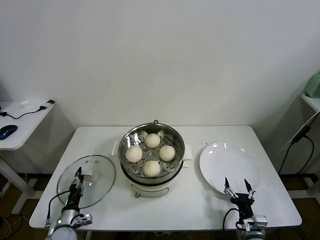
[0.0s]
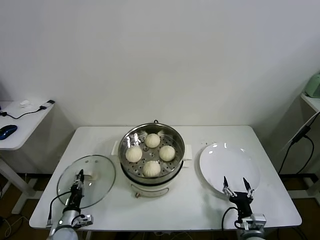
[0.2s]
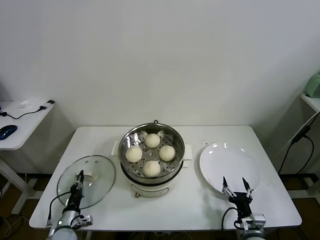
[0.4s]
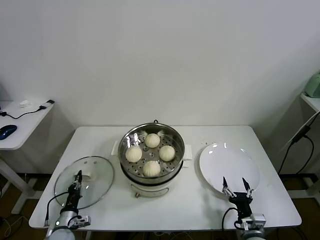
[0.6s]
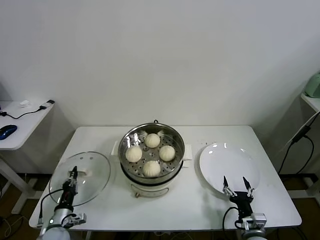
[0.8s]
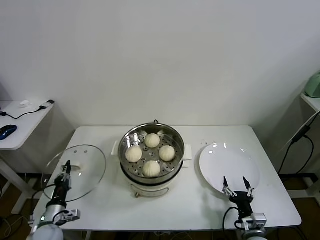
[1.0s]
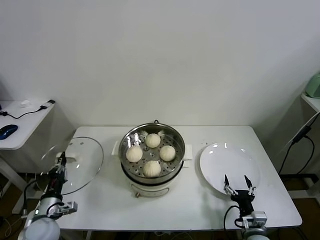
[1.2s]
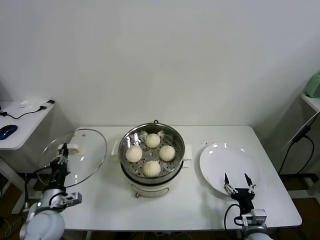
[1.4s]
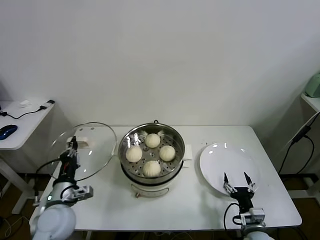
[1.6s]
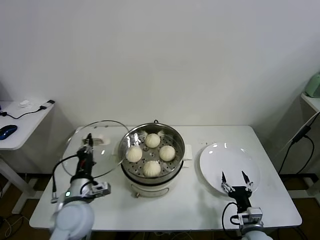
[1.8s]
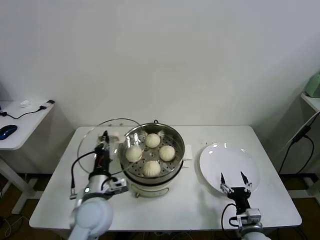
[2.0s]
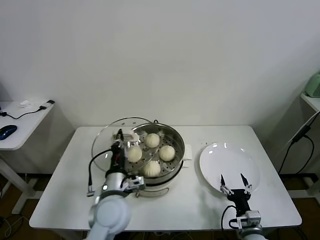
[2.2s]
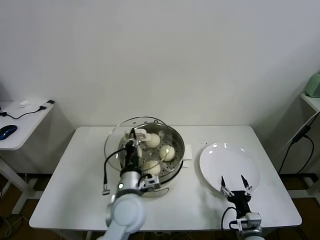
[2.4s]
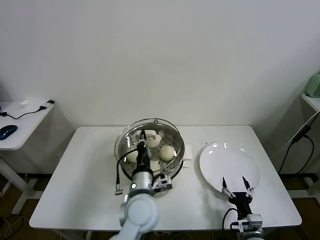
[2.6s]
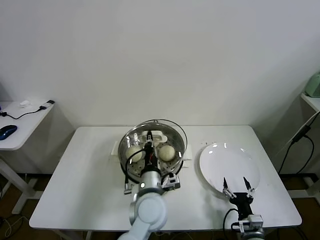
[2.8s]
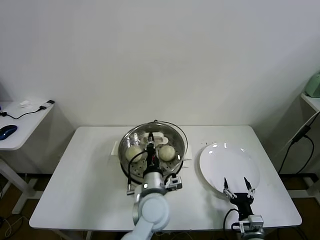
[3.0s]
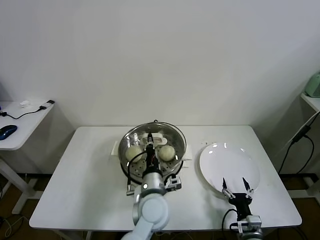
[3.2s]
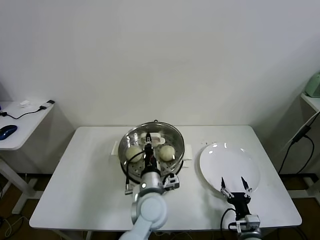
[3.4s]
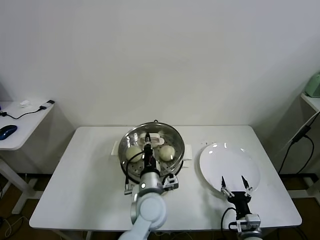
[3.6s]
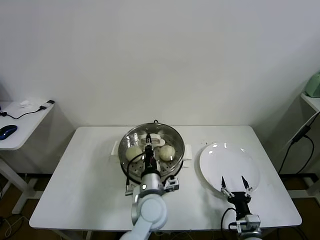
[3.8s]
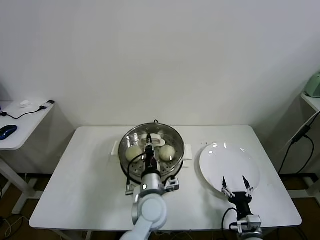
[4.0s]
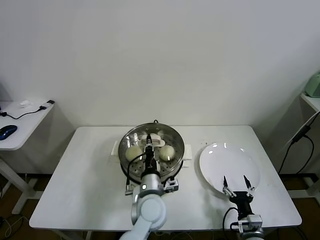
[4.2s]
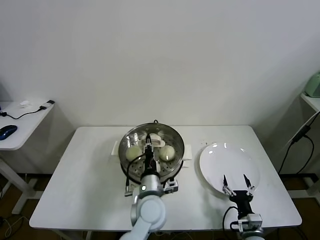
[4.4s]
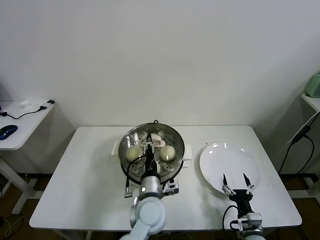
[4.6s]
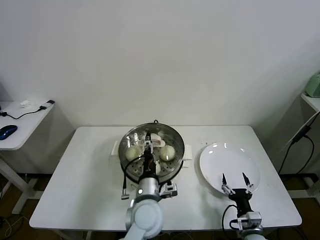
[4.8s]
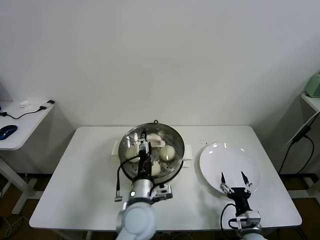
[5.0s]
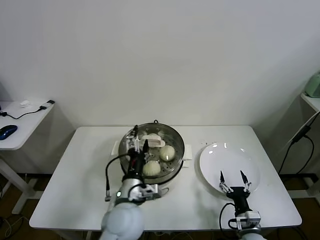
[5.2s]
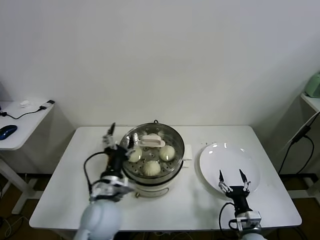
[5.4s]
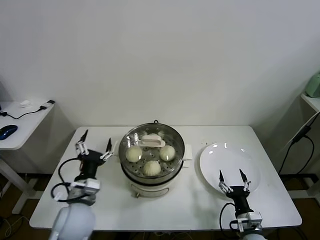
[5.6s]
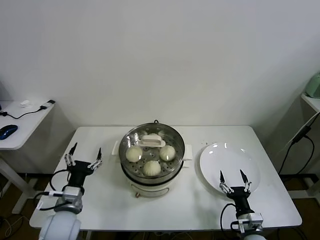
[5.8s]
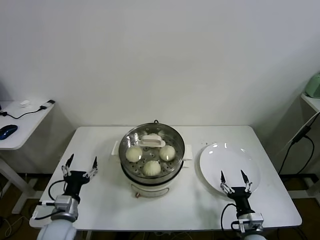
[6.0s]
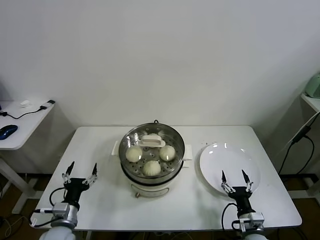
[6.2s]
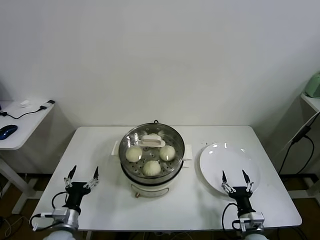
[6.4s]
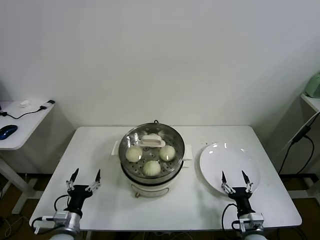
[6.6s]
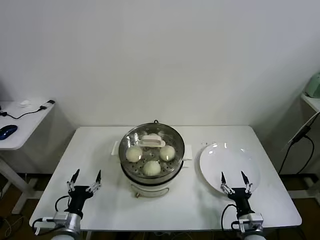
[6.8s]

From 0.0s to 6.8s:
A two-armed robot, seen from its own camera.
Task of the whole recording: take steamed baozi put them in steamer.
Step, from 0.6s to 4.6s: Place the pot lid on the steamer with left gripper.
From 0.0s to 1.4s: The left gripper travels upward by roughly 15 cm, and closes its fingers.
From 1.4s to 2.8s: The left gripper goes roughly 30 cm to the right.
From 2.8s to 4.0s: The grippers stay close to where they were, moving slightly.
From 4.0s to 5.4s: The left gripper moves to the left, approximately 10 cm, and opens.
From 5.4s to 6.8s: The left gripper is displaced to the left and downward by some 25 cm.

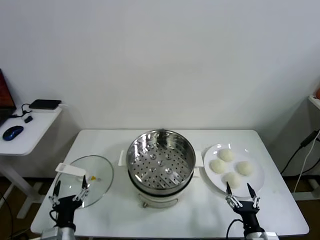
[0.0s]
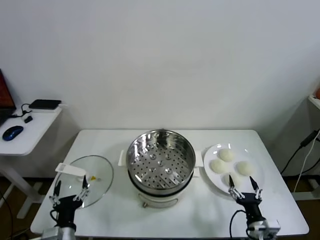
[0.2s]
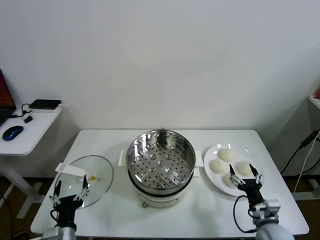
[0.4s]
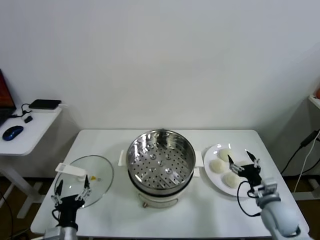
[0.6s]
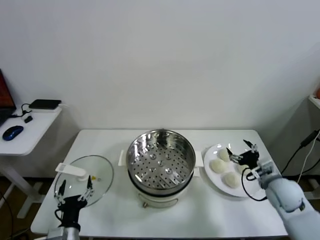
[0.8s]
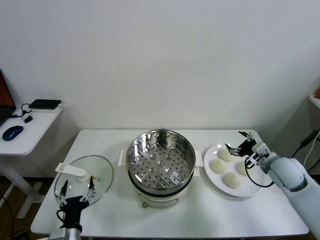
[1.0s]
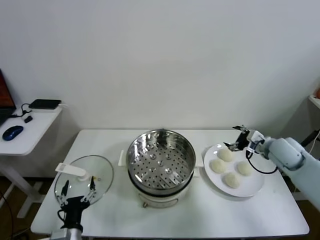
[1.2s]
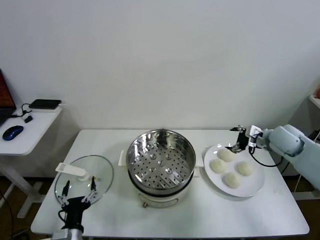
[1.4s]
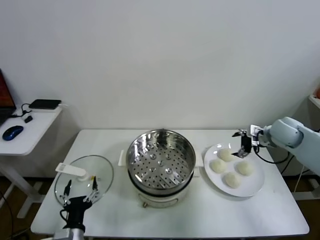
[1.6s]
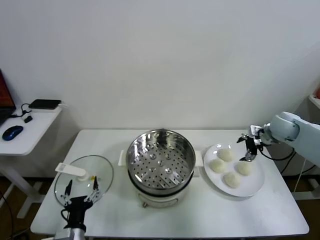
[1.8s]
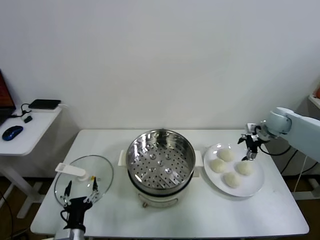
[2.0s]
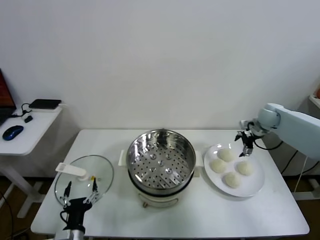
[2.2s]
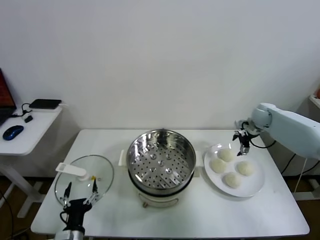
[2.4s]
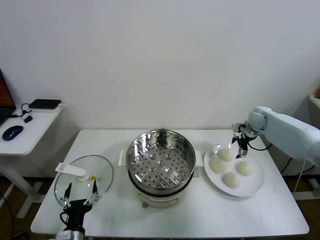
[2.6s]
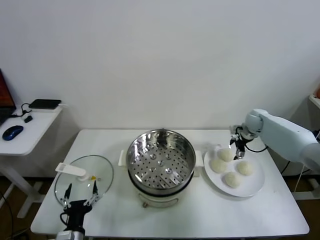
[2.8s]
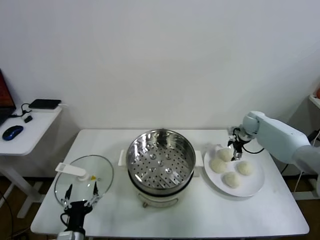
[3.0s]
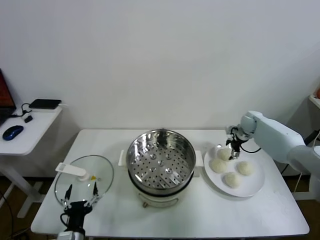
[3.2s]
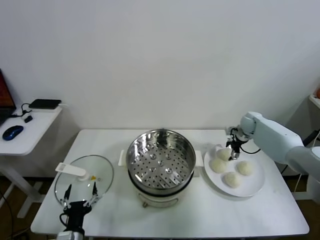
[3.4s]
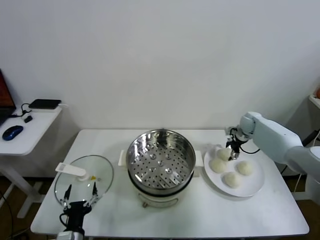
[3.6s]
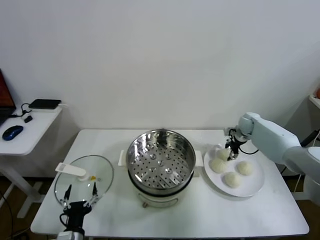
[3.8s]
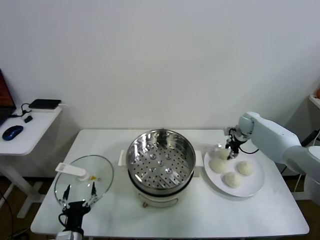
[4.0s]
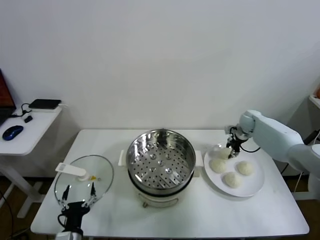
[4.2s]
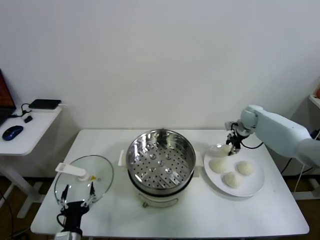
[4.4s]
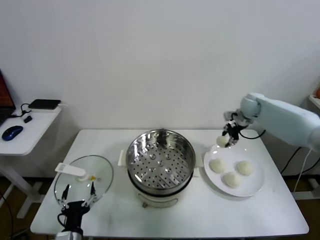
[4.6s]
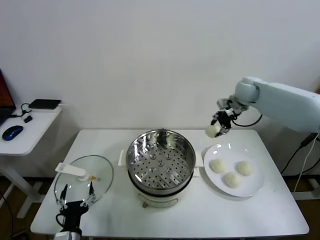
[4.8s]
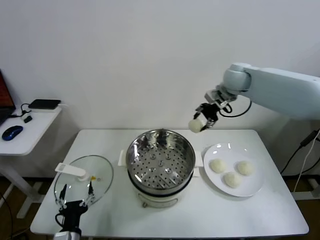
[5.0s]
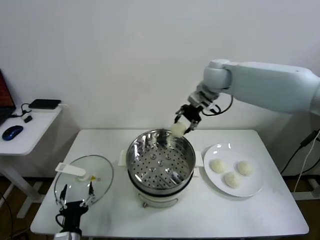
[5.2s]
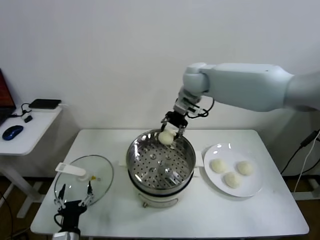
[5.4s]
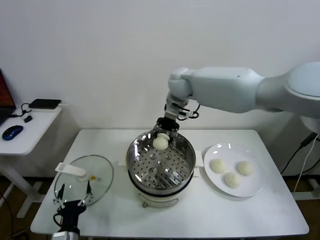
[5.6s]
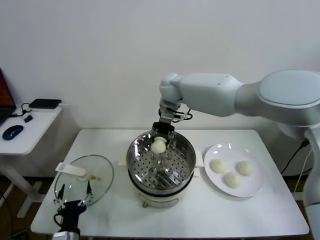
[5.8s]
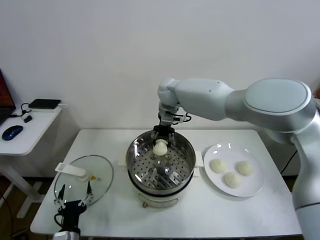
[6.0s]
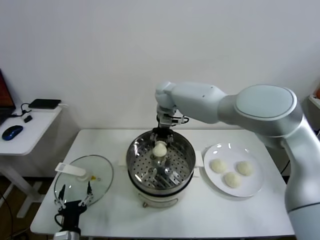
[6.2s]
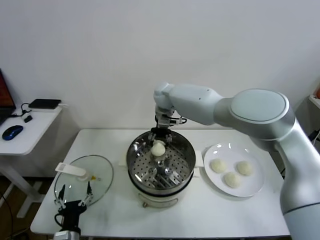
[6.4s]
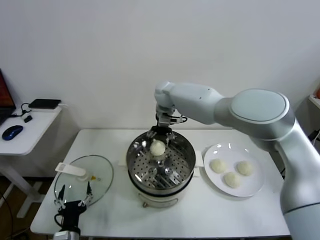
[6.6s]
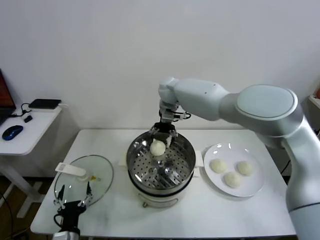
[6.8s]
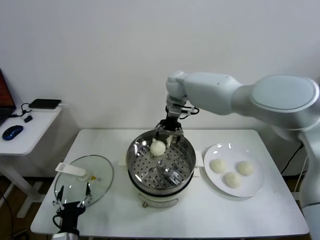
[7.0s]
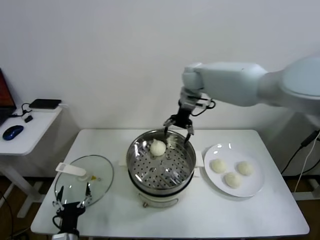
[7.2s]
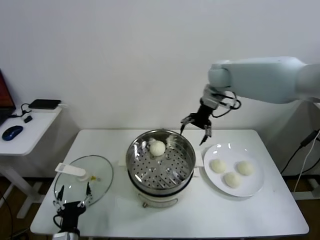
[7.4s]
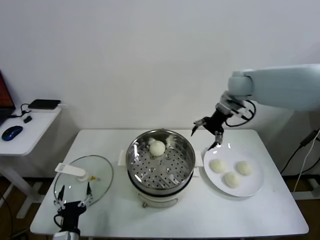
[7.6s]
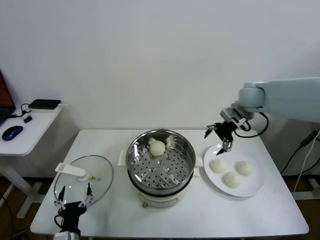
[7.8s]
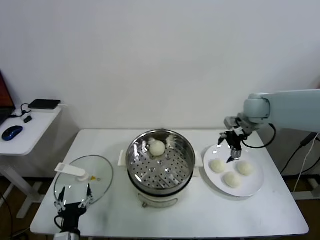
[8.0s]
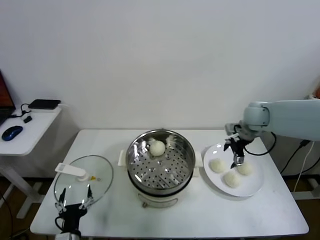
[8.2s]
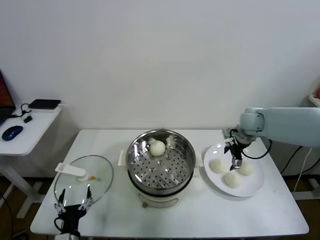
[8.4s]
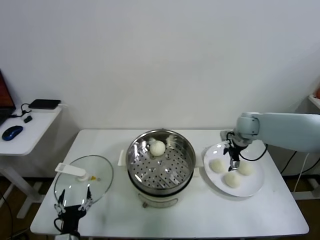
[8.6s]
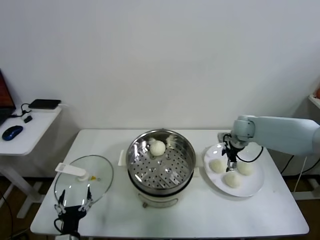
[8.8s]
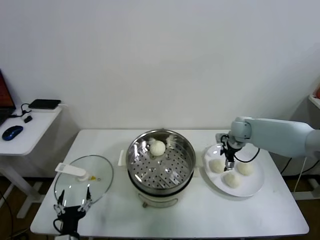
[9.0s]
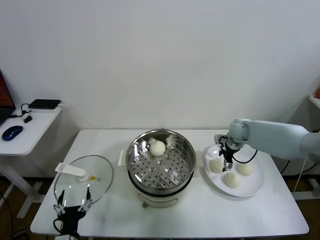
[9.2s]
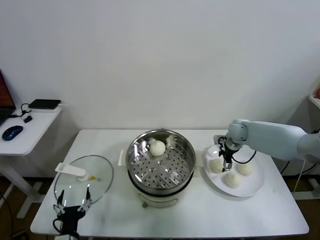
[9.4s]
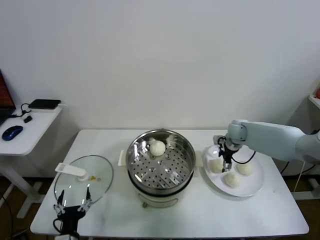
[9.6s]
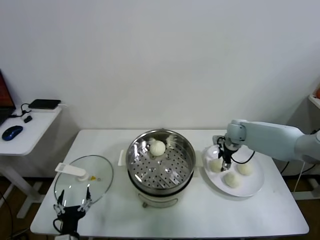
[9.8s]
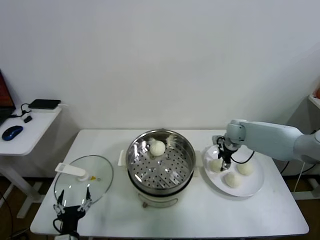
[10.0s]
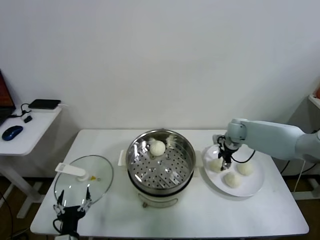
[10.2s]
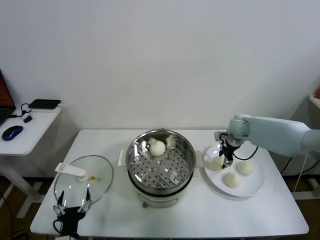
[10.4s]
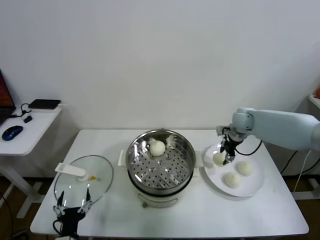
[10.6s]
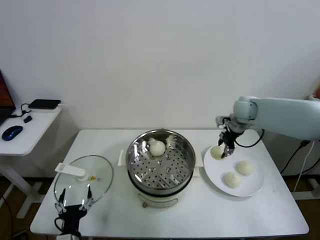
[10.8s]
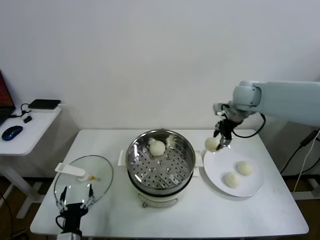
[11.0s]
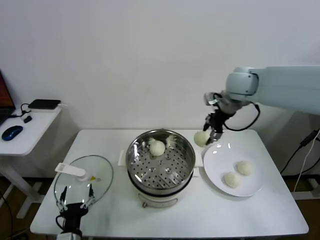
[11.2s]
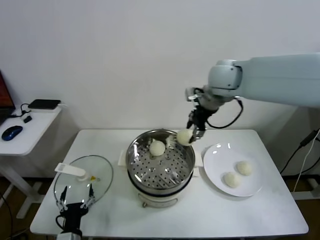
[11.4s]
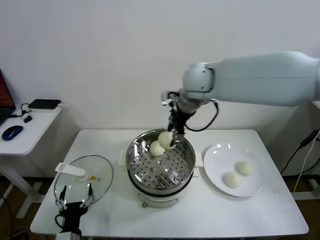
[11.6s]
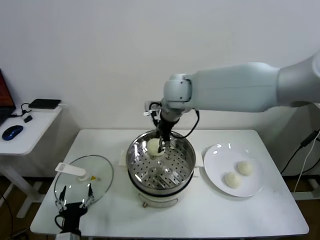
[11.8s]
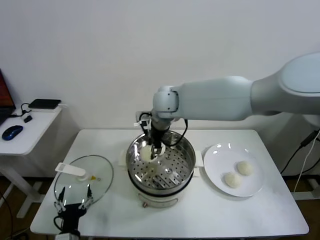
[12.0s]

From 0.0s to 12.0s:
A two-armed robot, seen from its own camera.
Task of the whole recording: take steamed baozi put them in steamer.
Step, from 0.0s to 4.0s: Grasp the baozi in the plate with right gripper.
Step, from 4.4s to 6.8s: Place the baozi on the steamer with right gripper.
Step, from 7.0s to 9.8s: Grasp the baozi in the plate with right gripper.
From 1.6s to 3.0s: The right gripper moves forward and downward, roughly 15 cm.
From 3.0s to 4.4s: The right gripper closes up.
From 4.4s to 6.0s: The right gripper shifts approximately 35 cm to the left.
From 6.0s to 7.6s: The right gripper travels to the right by roughly 25 cm, and opens its fingers.
From 7.6s to 9.0s: The right gripper shifts roughly 20 cm downward.
From 9.0s to 10.4s: The right gripper closes its fingers.
From 10.4s to 12.0s: The right gripper moves to the left and upward, about 35 cm.

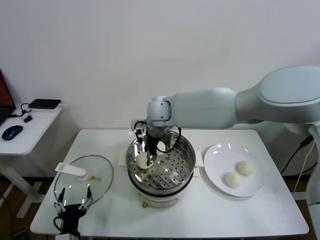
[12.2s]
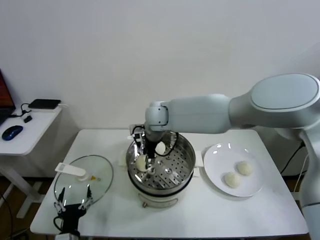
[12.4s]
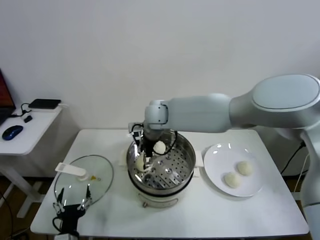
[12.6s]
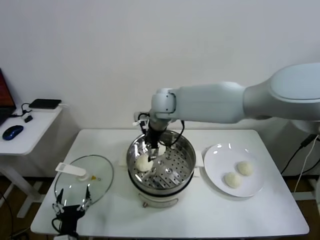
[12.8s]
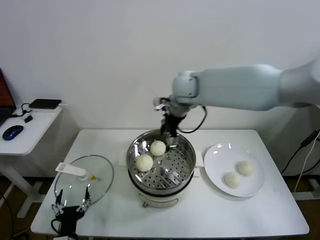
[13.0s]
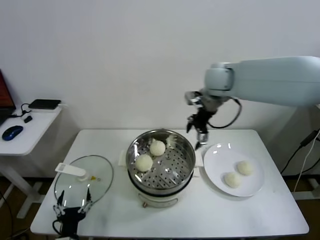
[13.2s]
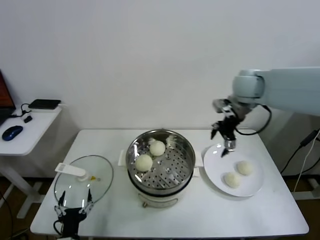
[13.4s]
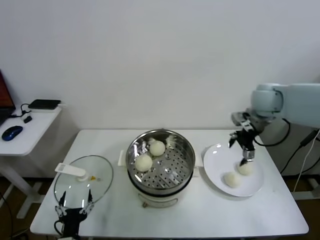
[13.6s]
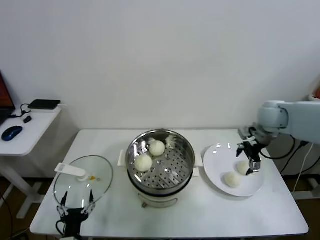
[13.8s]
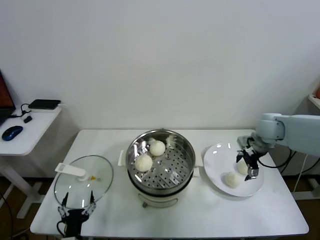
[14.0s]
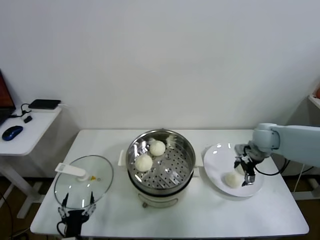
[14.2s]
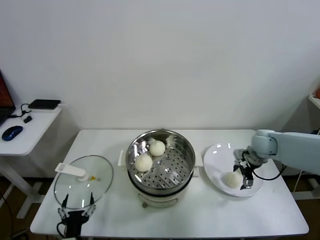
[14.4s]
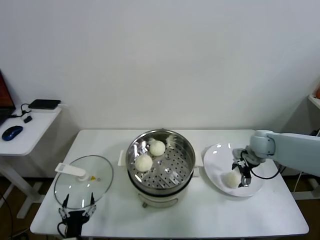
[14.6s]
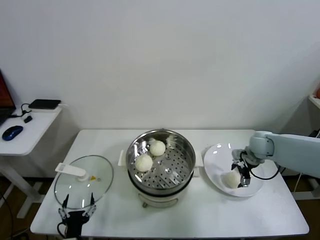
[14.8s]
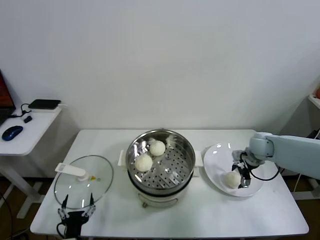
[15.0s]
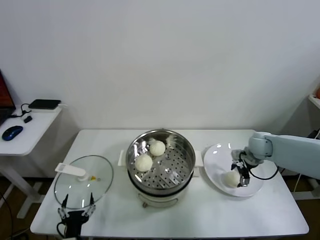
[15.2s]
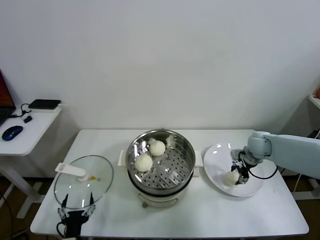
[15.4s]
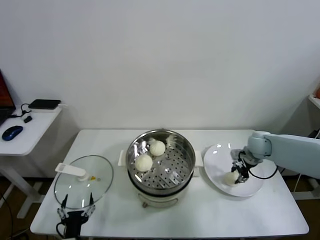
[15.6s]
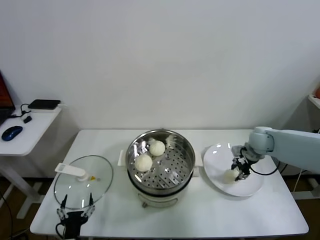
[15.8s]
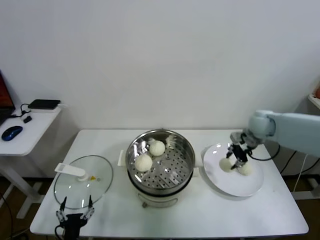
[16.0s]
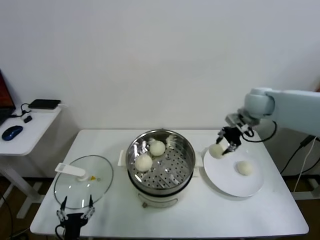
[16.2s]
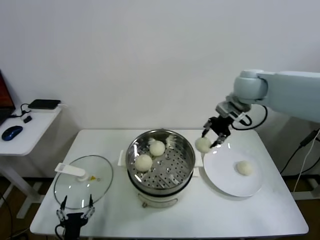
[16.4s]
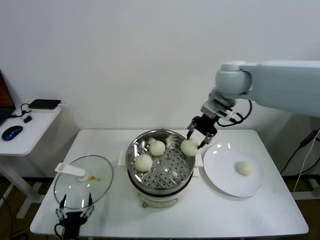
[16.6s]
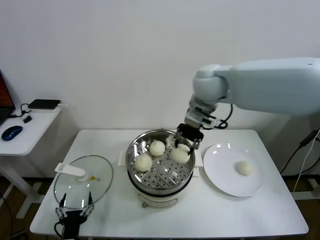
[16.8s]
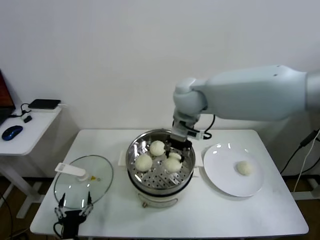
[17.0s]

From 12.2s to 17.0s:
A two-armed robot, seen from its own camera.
Task of the whole recording: take steamed baozi put them in steamer.
Step, from 12.8s to 15.6s: Grasp the baozi in the plate with right gripper.
From 12.2s to 13.8s: The right gripper travels to the right by approximately 35 cm, and opens.
From 13.8s to 15.4s: The right gripper moves downward, roughly 15 cm, and closes.
From 15.4s to 17.0s: The right gripper goes some 35 cm to the left and upward, and closes up.
